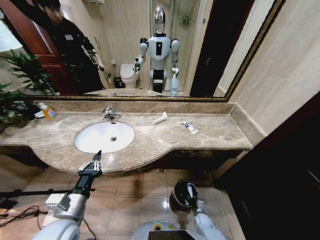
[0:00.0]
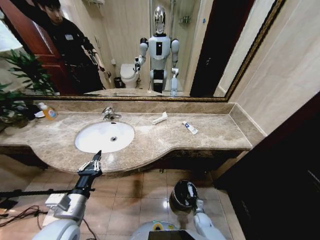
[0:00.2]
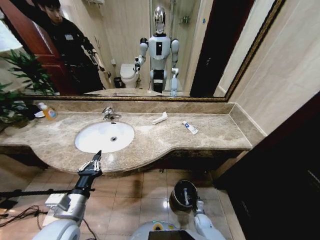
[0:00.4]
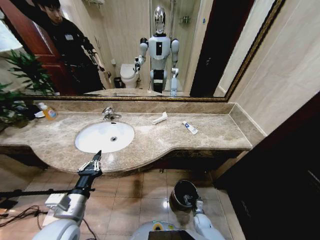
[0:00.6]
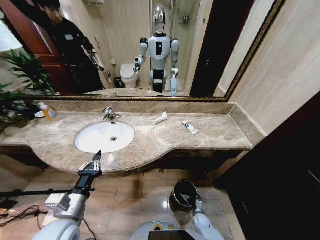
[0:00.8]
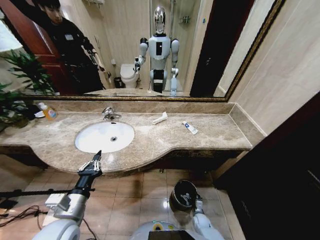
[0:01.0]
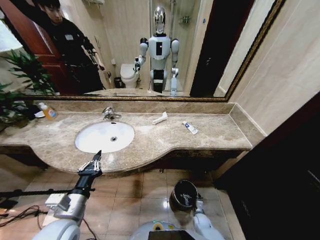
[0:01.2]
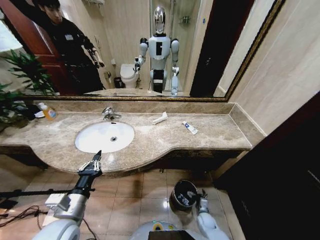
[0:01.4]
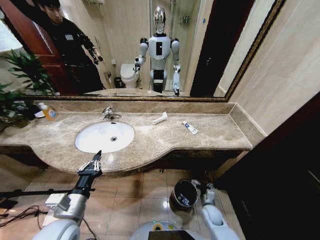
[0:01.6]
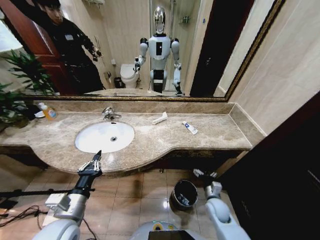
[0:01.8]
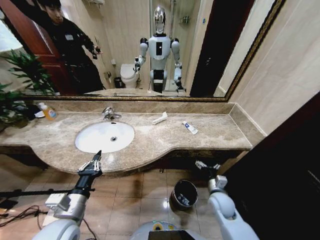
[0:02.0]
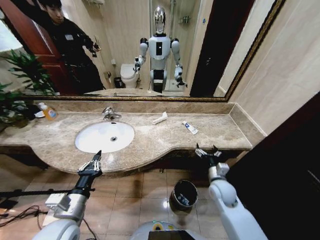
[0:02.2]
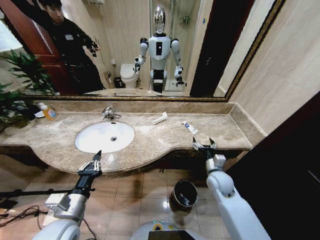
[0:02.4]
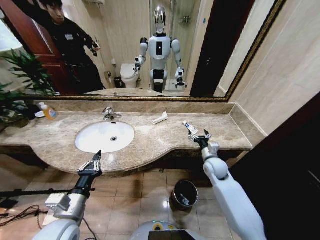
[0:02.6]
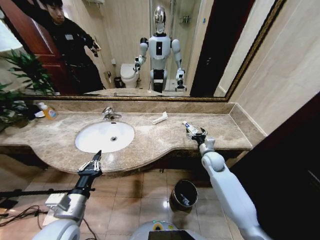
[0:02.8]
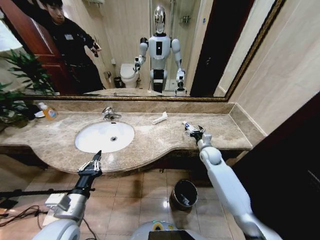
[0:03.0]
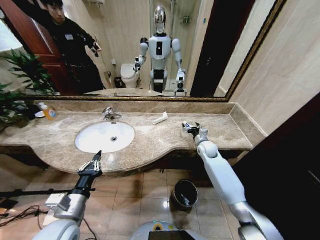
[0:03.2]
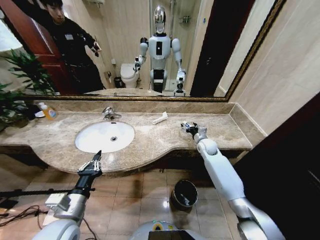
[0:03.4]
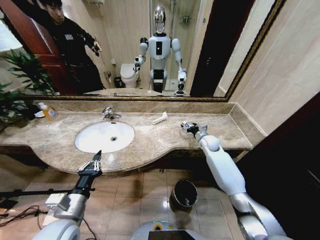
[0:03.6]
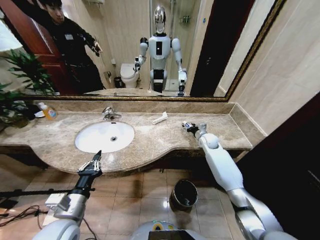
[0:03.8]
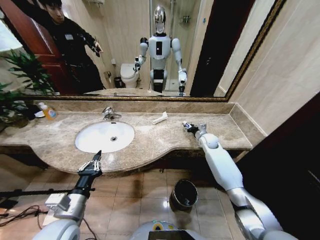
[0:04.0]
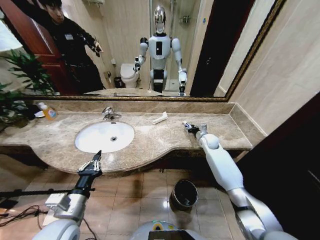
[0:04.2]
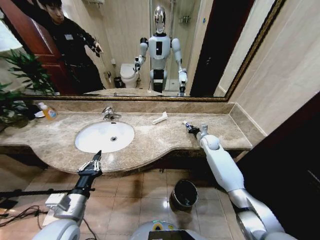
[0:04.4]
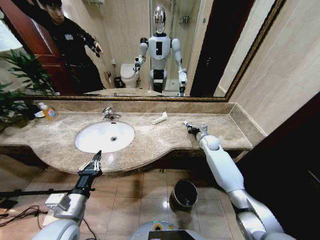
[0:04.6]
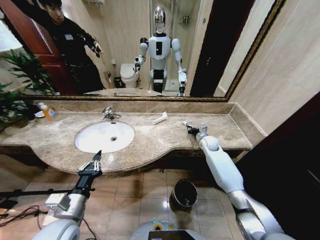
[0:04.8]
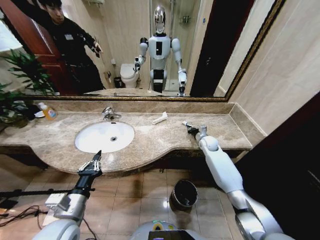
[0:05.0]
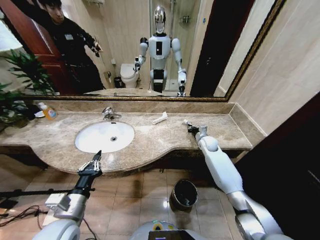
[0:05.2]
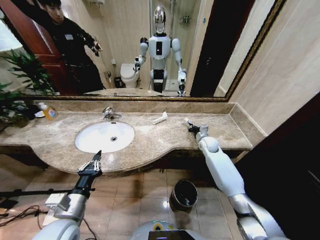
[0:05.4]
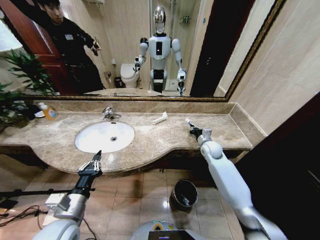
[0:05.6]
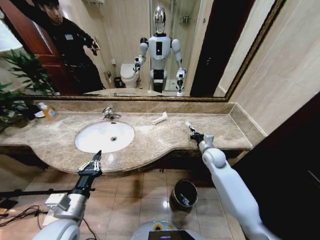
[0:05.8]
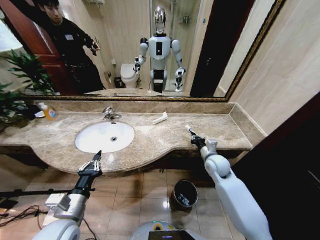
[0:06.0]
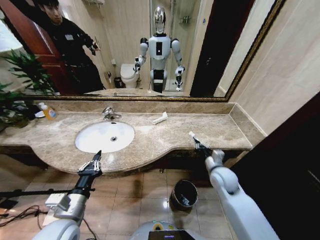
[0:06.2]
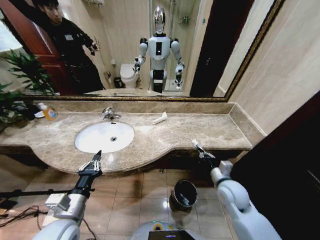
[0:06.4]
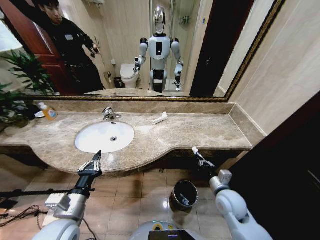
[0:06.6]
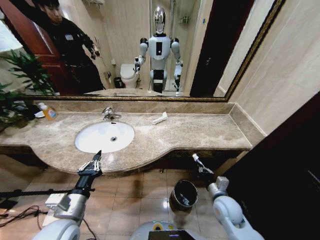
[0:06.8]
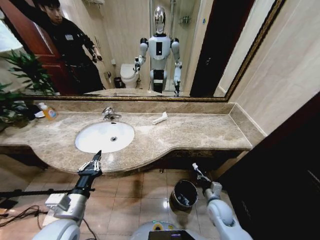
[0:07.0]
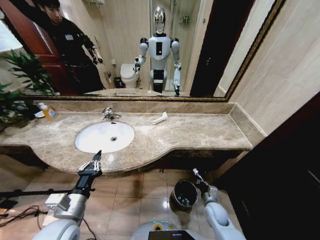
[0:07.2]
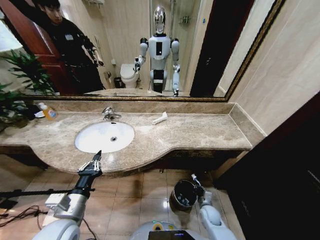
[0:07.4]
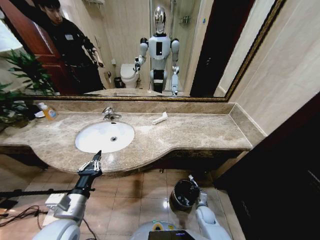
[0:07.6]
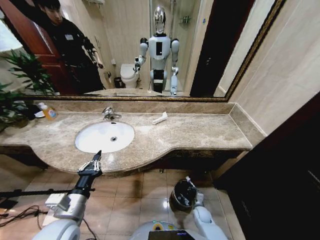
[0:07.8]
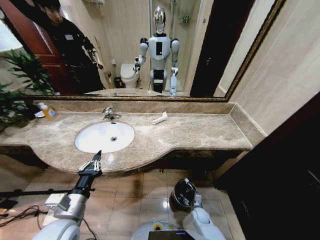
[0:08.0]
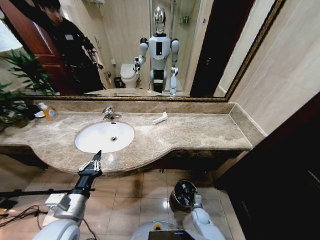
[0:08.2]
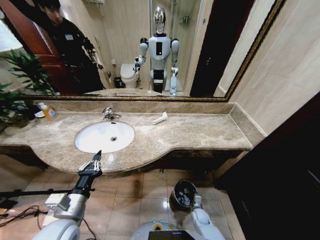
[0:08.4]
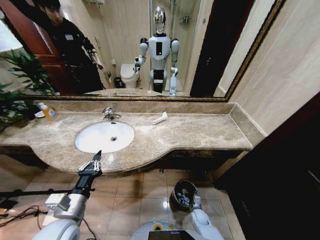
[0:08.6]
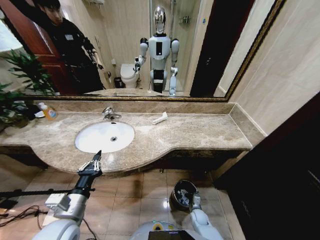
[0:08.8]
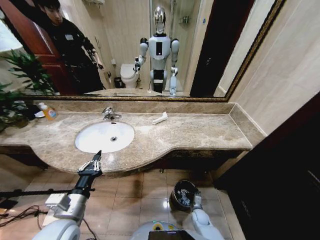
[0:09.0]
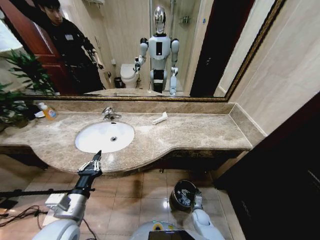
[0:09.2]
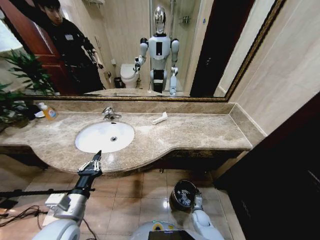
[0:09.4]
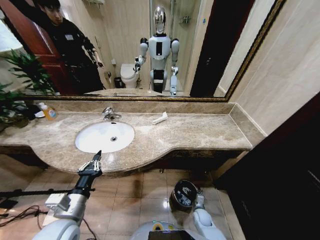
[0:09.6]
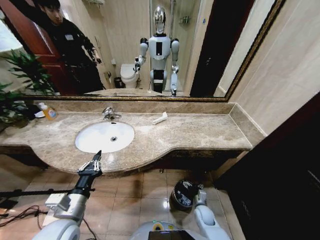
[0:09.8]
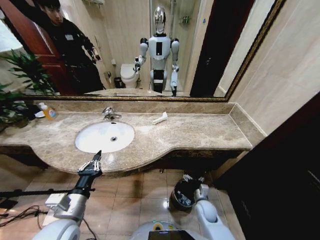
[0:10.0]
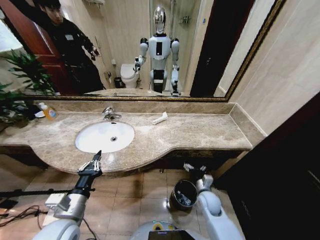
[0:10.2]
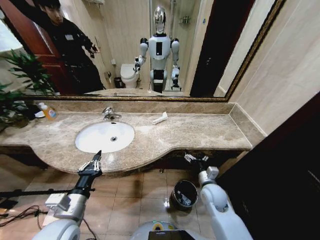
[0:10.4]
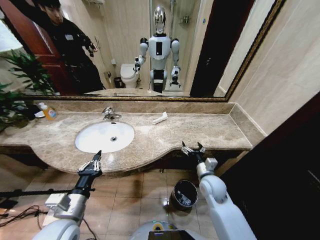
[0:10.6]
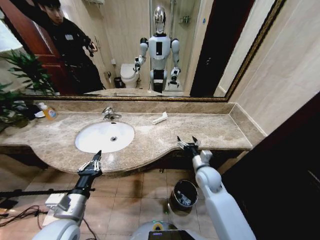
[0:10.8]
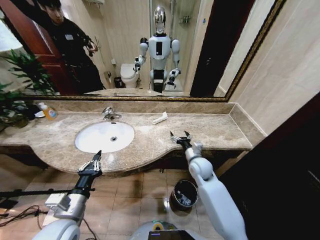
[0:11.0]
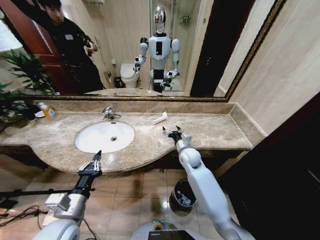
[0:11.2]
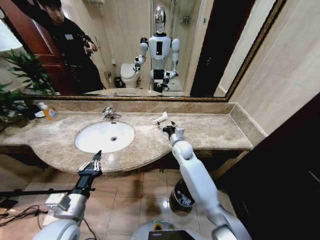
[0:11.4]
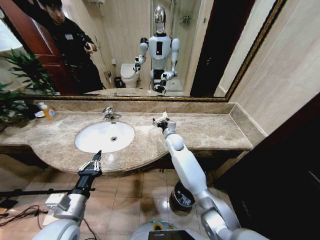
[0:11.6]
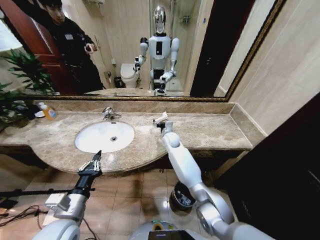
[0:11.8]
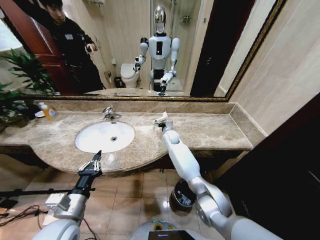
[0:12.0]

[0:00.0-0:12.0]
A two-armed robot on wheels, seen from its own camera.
Task of the whole recording: Pick up the trash from the sink and place it in the trash bin.
0:00.0 to 0:01.6: The right gripper goes about 10 cm upward, and opens up.
0:01.6 to 0:03.0: The right gripper is displaced upward and forward by about 35 cm.
0:03.0 to 0:04.4: The right gripper goes approximately 5 cm forward, and closes its fingers.
0:04.4 to 0:06.0: The right gripper is displaced backward by some 15 cm.
0:06.0 to 0:07.6: The right gripper moves downward and backward, roughly 35 cm.
0:07.6 to 0:09.0: The right gripper opens.
0:09.0 to 0:10.4: The right gripper travels upward by about 25 cm.
0:10.4 to 0:12.0: The right gripper moves forward and to the left, approximately 35 cm.

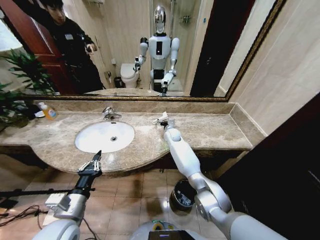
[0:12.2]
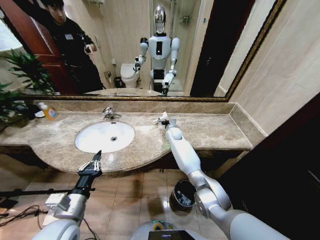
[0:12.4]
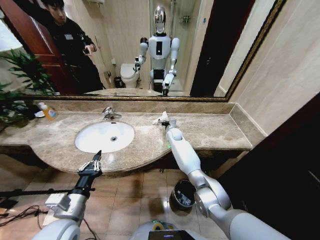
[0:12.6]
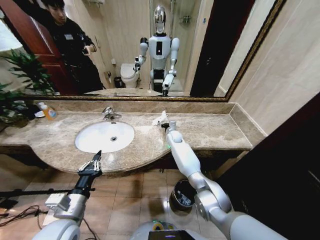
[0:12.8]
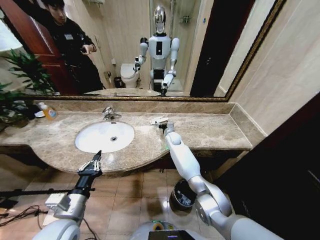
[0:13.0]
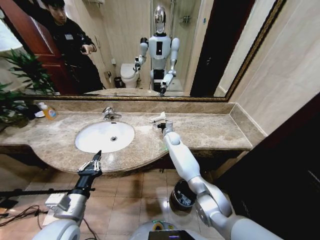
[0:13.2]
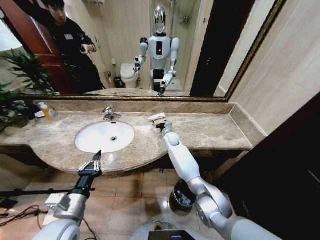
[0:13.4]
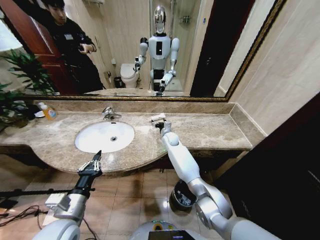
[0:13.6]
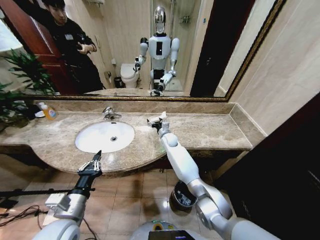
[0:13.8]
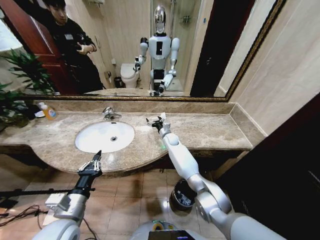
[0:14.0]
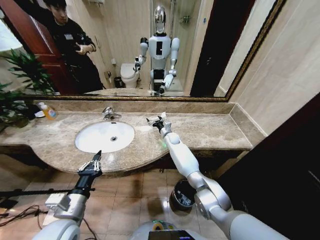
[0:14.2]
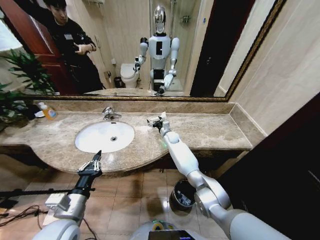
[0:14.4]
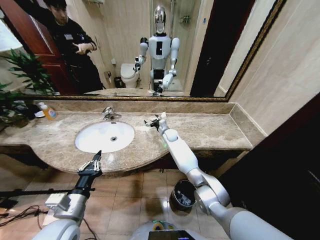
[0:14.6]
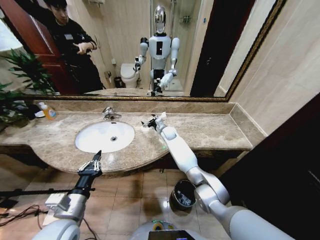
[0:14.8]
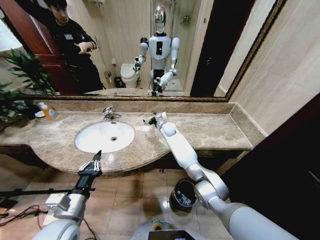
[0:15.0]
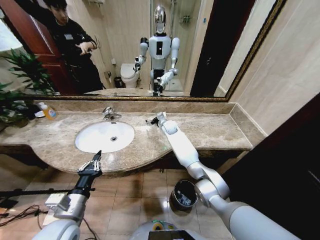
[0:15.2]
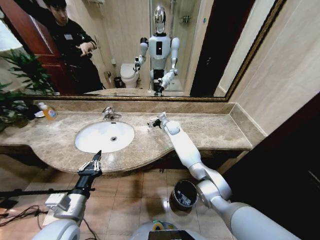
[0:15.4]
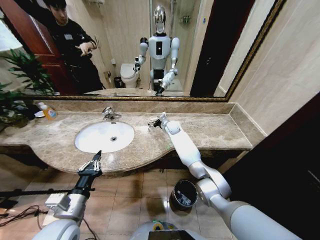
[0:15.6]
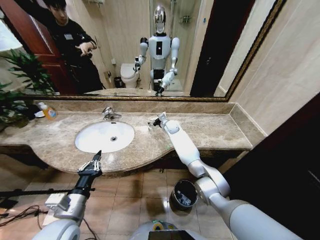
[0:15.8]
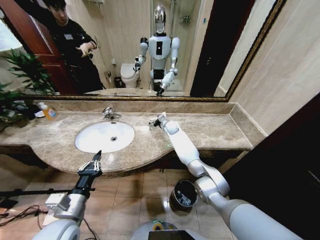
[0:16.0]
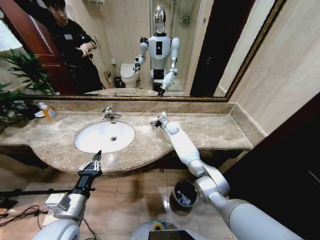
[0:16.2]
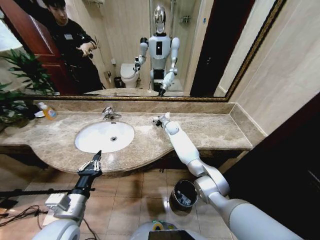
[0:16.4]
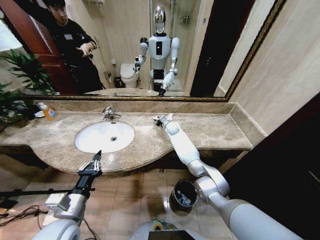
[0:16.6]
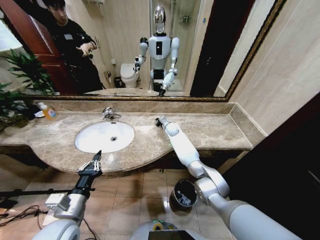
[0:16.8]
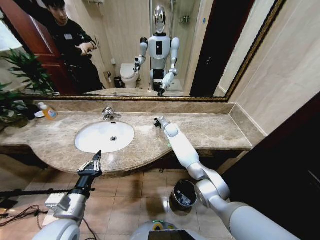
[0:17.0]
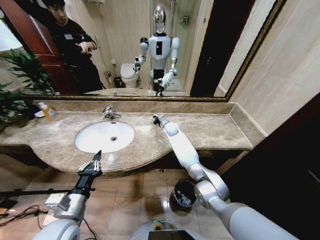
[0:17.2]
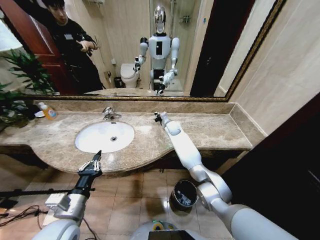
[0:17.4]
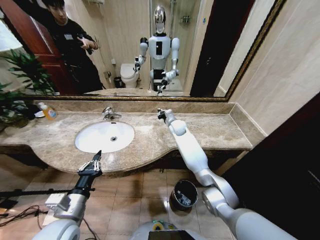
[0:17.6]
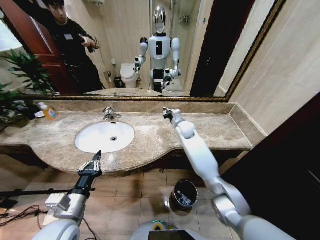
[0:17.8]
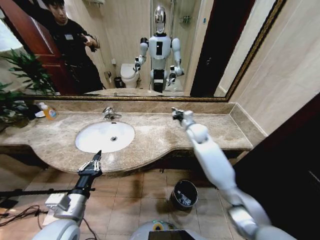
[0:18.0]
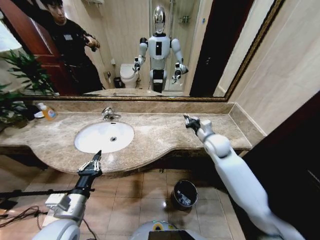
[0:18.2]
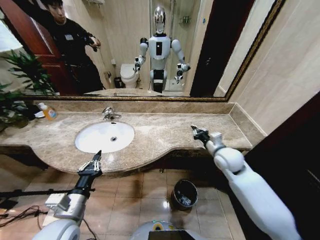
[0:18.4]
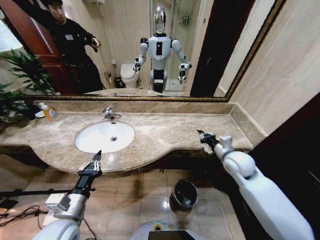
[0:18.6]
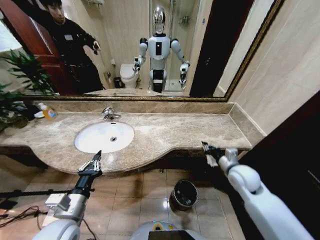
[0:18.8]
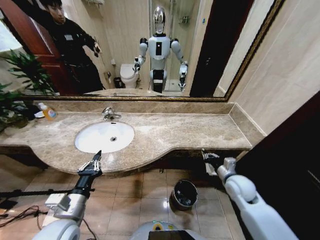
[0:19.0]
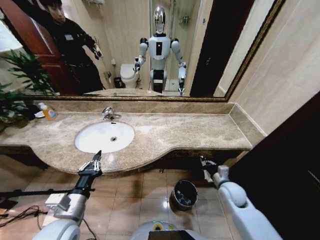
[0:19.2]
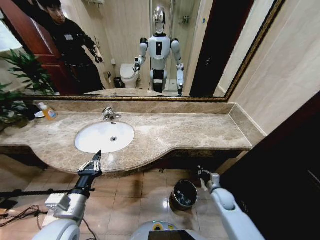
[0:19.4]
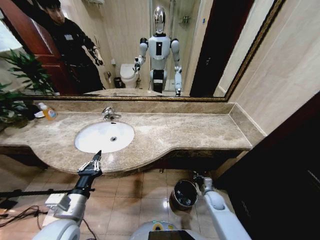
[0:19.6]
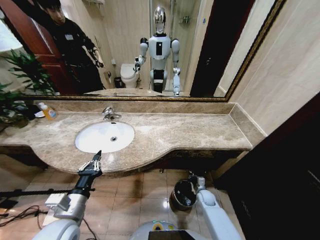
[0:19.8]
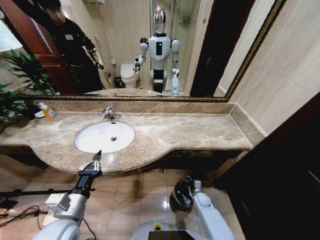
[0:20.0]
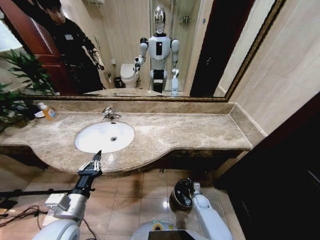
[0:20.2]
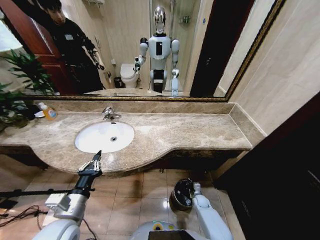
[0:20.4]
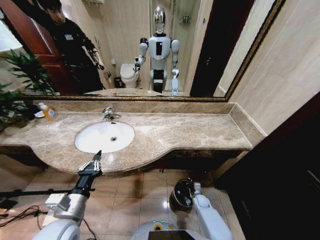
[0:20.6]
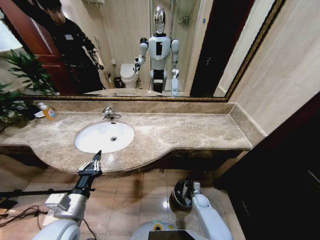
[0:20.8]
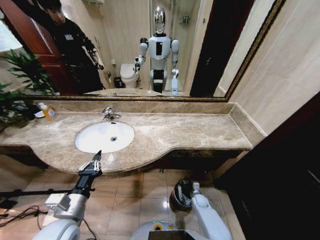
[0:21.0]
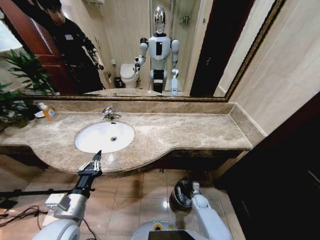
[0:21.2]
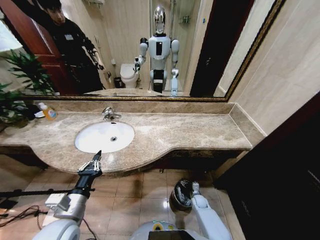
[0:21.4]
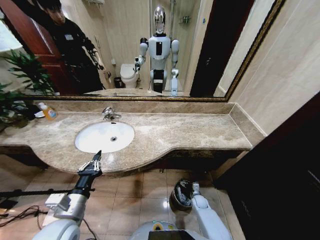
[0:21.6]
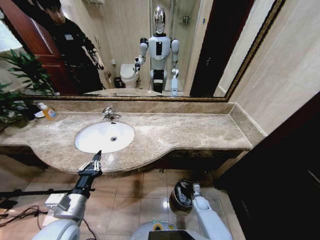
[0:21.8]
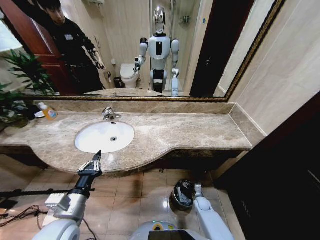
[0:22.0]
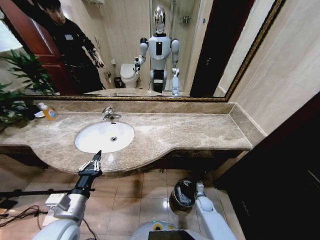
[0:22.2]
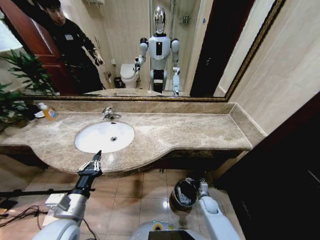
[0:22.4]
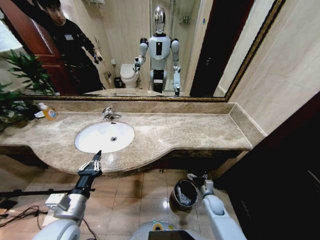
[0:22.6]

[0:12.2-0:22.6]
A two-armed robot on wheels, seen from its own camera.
Task of the whole recording: Pick up the trash from the sink and place it in the trash bin.
0:12.2 to 0:13.6: The grippers stay close to where they were, moving slightly.
0:13.6 to 0:15.2: The right gripper moves forward and upward, about 5 cm.
0:15.2 to 0:16.6: The right gripper closes.
0:16.6 to 0:18.2: The right gripper travels backward and to the right by some 25 cm.
0:18.2 to 0:19.6: The right gripper travels downward and backward by approximately 35 cm.
0:19.6 to 0:21.2: The right gripper shifts roughly 10 cm downward, and opens.
0:21.2 to 0:22.6: The right gripper goes approximately 10 cm upward.
